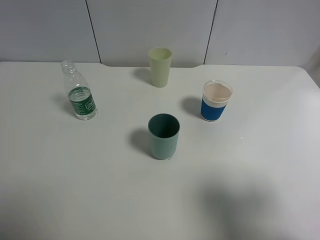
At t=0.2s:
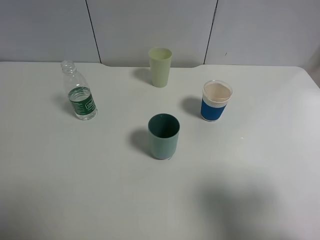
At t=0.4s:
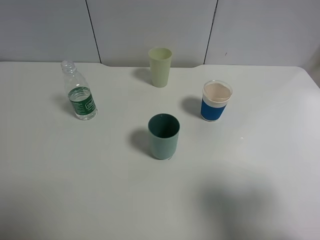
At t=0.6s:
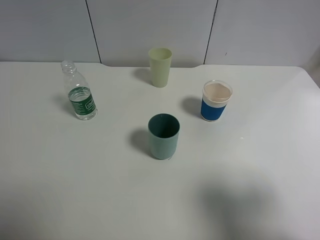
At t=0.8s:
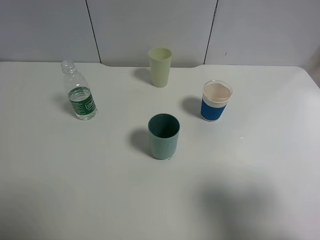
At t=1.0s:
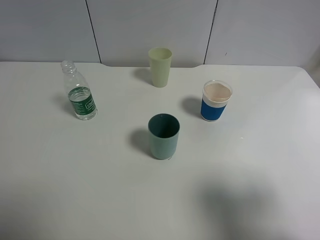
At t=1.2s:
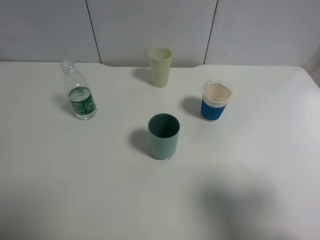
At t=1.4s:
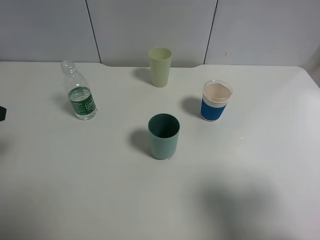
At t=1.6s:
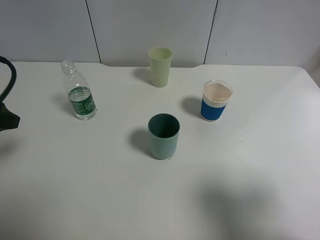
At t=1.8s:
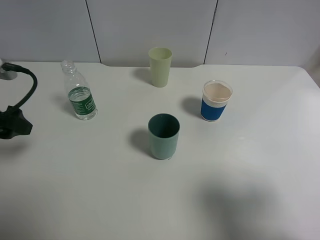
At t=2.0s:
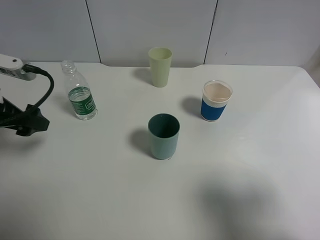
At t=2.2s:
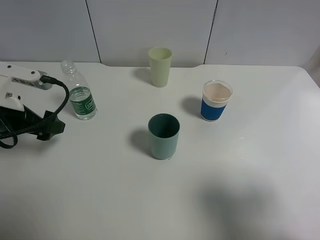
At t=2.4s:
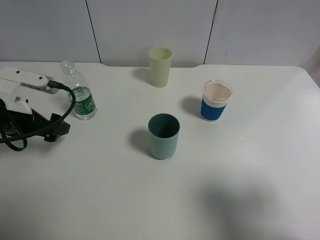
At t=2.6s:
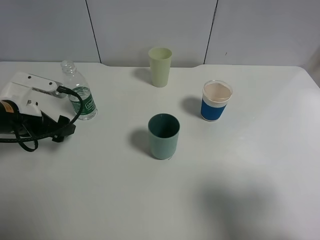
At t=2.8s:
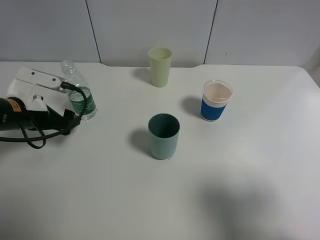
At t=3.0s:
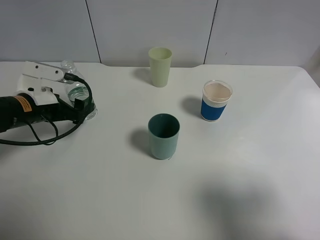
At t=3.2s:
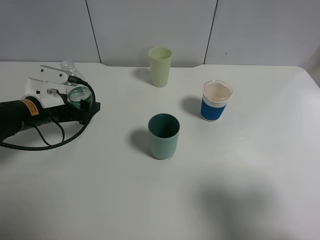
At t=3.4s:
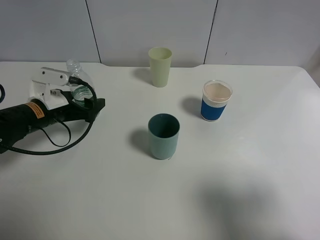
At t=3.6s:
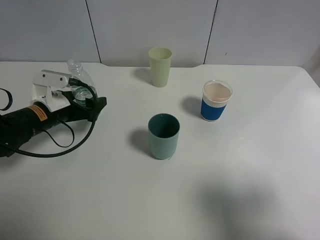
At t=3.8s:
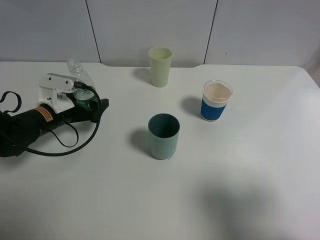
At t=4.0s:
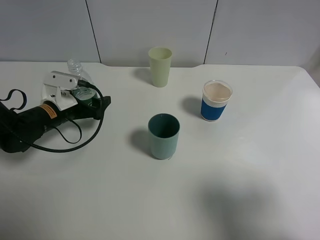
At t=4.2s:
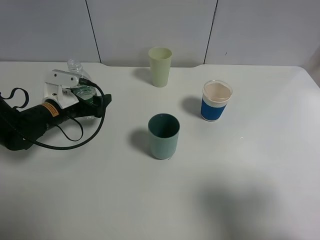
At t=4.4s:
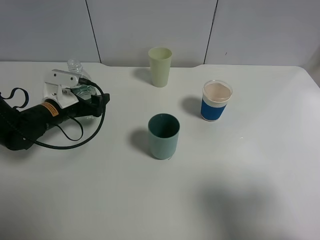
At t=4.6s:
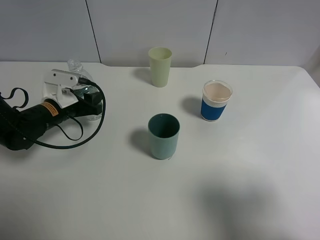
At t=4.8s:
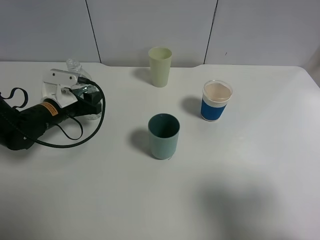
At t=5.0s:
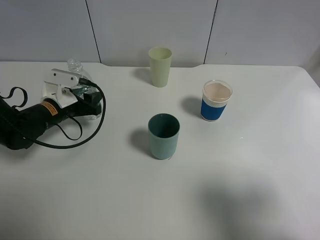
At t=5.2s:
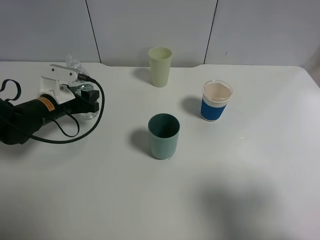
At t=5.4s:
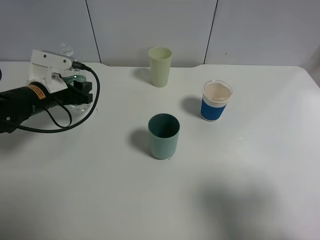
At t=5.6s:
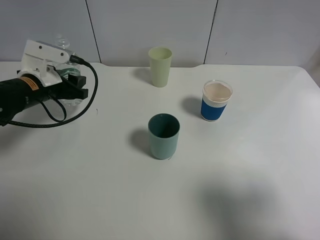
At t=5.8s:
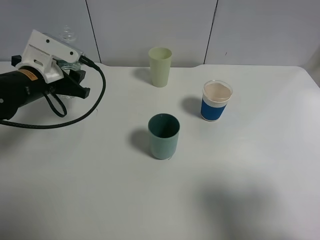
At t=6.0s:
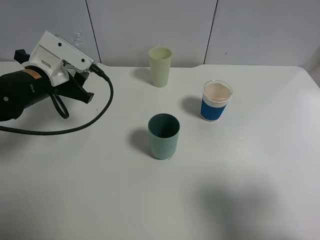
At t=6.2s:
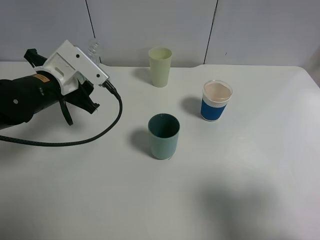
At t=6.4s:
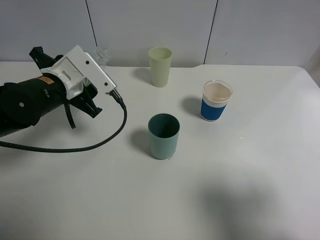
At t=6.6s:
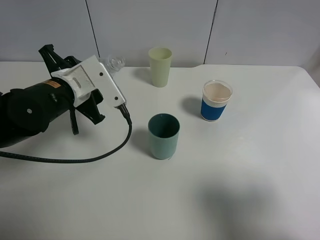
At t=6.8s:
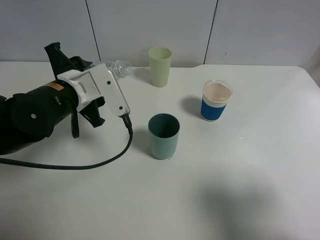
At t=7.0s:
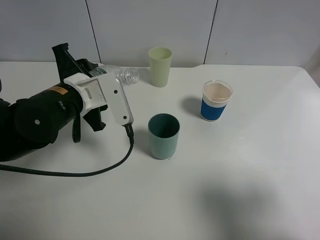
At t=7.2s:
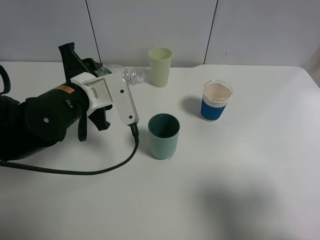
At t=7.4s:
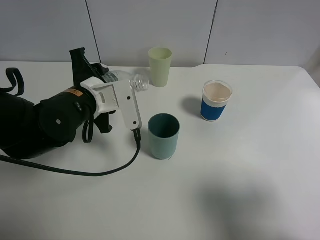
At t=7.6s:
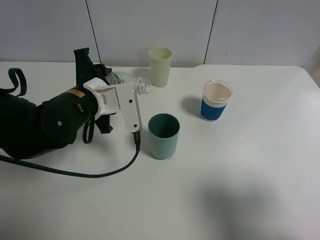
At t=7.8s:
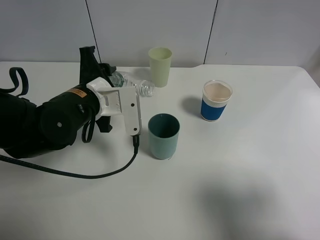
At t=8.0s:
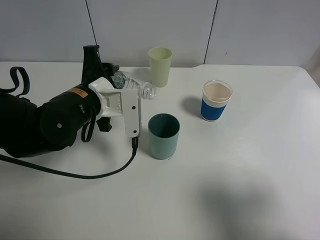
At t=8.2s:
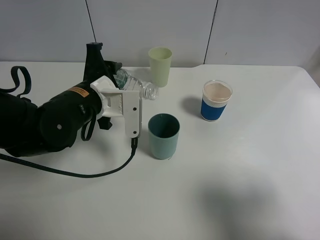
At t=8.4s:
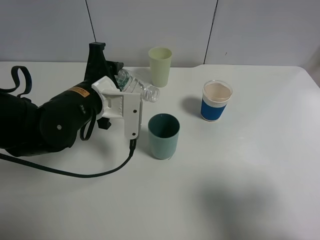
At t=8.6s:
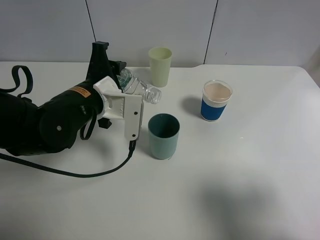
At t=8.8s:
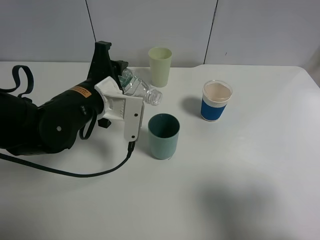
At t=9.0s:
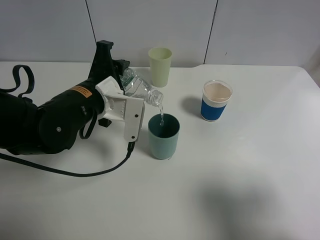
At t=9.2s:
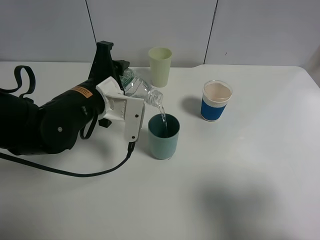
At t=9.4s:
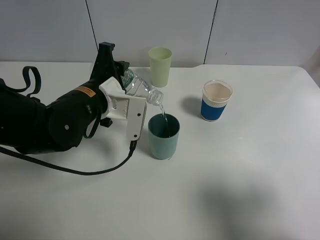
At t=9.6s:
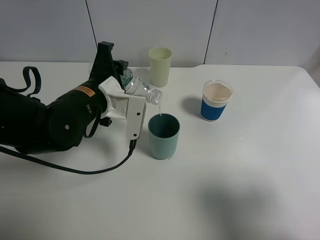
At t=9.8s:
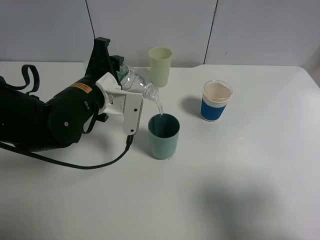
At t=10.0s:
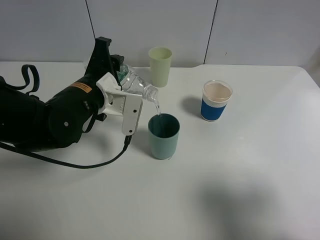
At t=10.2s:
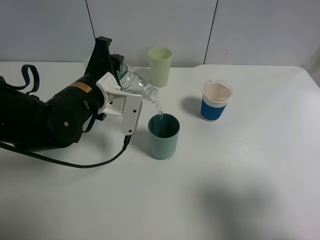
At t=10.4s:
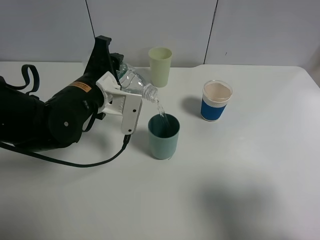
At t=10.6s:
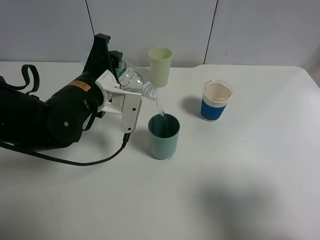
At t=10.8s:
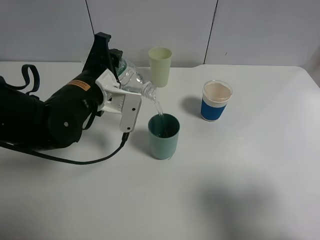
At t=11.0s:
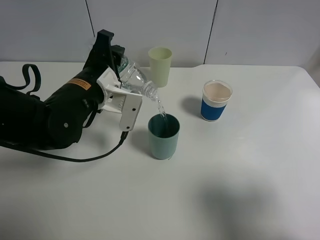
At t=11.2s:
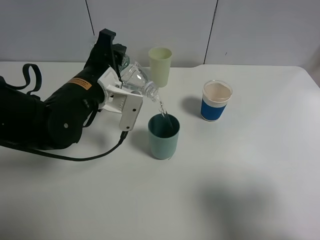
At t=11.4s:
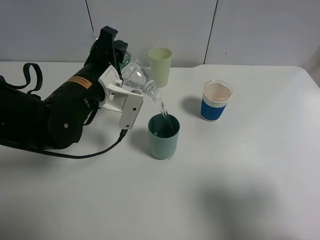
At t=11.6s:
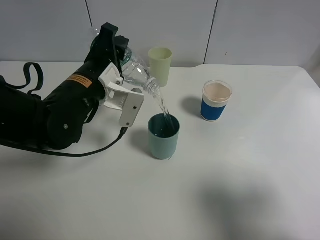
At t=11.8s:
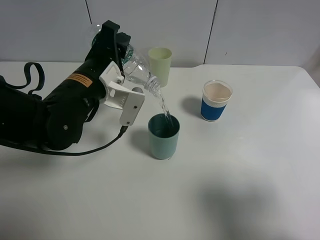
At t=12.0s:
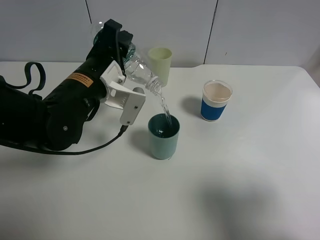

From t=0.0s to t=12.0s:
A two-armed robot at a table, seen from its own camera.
Task of the whole recording: use a clamp to hold the bottle of the drink, pour the beverage into a random cup, then clamp the cup containing the drink and pour the drink into another random cup.
Step, from t=0.0s to t=5.2s: Pick up the water bottle with left gripper.
From t=0.0s to t=1.6s: The left gripper moves forward, about 15 cm.
From t=1.6s to t=3.0s: The left gripper heads downward, forward and to the right, covering some 20 cm.
From t=3.0s to t=4.4s: The left gripper moves downward, roughly 5 cm.
From t=4.4s to t=6.0s: The left gripper is displaced upward by approximately 10 cm, and closes its fingers.
From t=6.0s to t=7.6s: The left gripper shifts roughly 10 cm to the right.
From t=9.0s to t=10.4s: The grippers move only a little.
From t=10.4s to t=12.0s: There are only small adjustments of the grippers.

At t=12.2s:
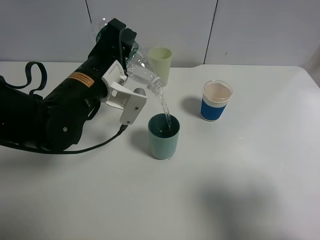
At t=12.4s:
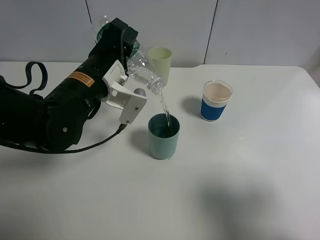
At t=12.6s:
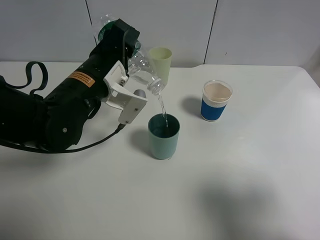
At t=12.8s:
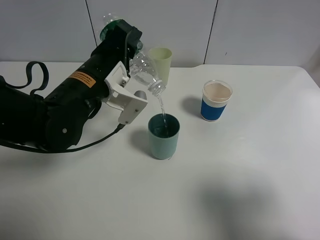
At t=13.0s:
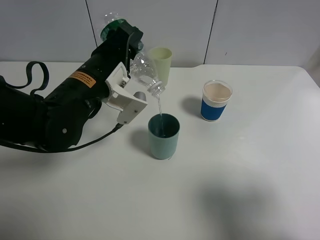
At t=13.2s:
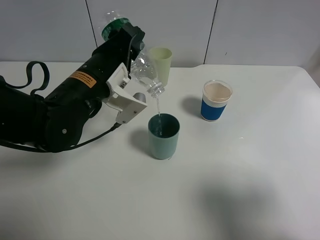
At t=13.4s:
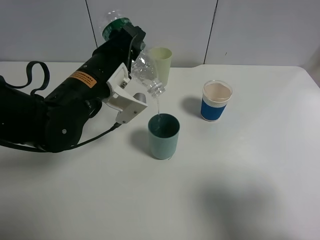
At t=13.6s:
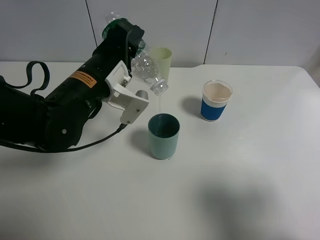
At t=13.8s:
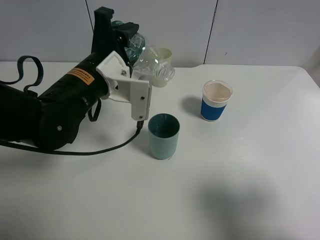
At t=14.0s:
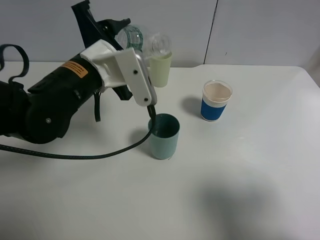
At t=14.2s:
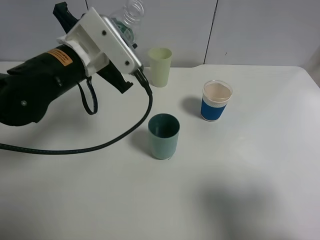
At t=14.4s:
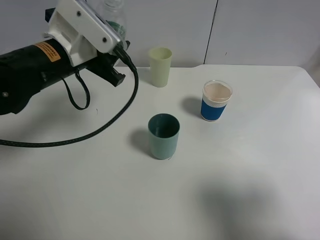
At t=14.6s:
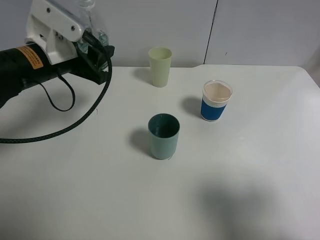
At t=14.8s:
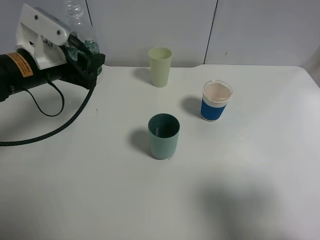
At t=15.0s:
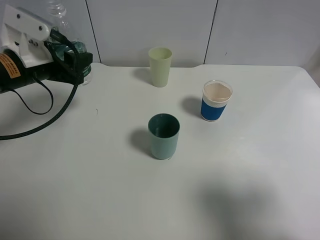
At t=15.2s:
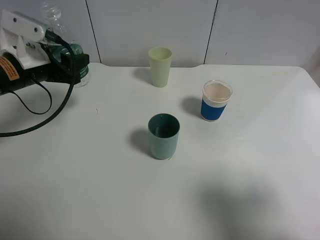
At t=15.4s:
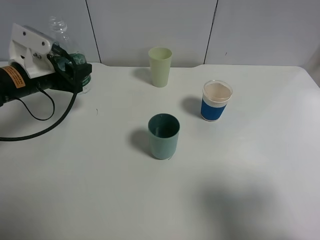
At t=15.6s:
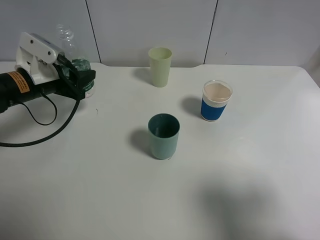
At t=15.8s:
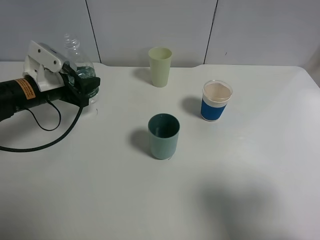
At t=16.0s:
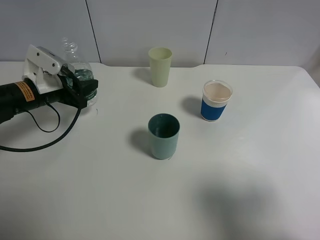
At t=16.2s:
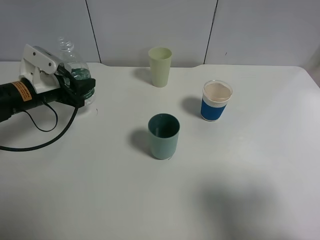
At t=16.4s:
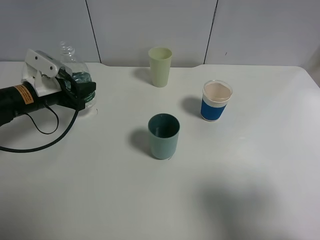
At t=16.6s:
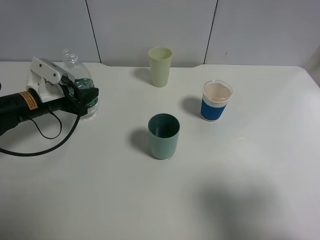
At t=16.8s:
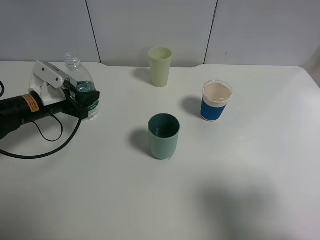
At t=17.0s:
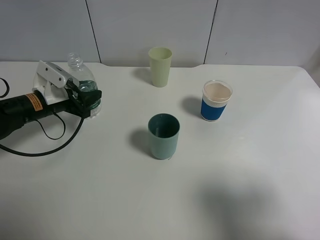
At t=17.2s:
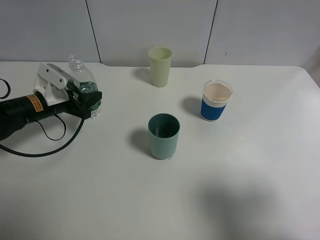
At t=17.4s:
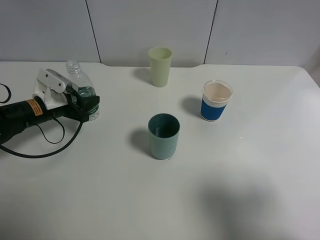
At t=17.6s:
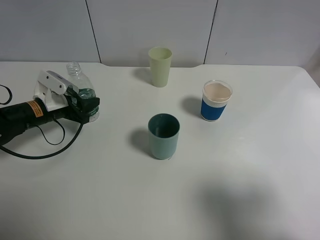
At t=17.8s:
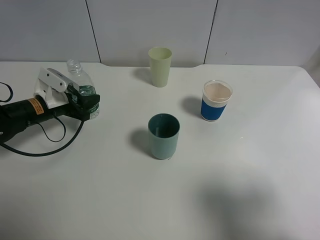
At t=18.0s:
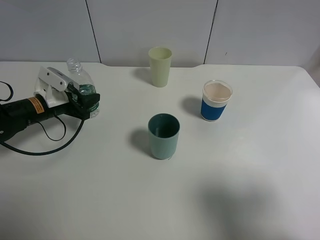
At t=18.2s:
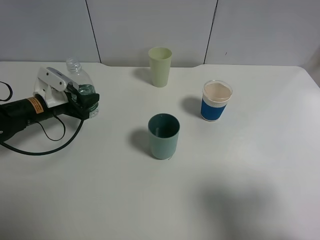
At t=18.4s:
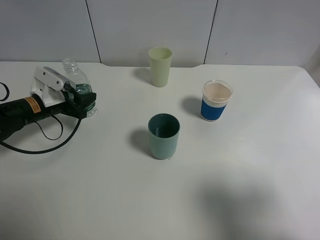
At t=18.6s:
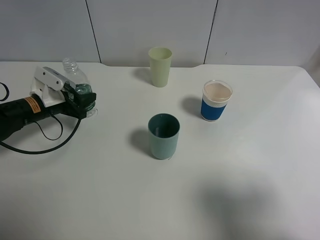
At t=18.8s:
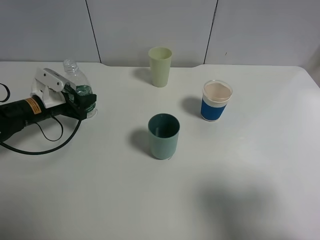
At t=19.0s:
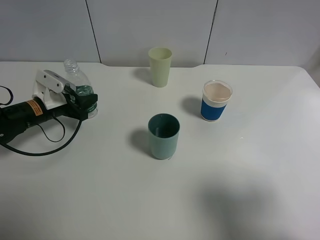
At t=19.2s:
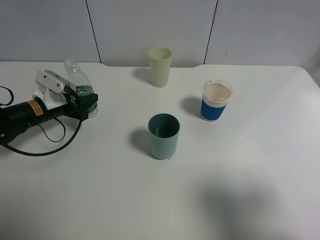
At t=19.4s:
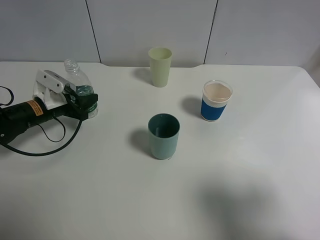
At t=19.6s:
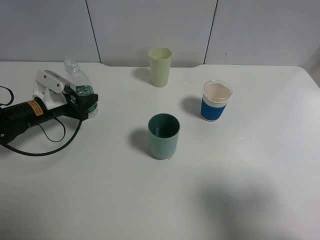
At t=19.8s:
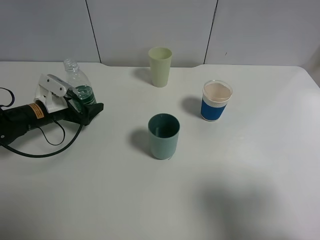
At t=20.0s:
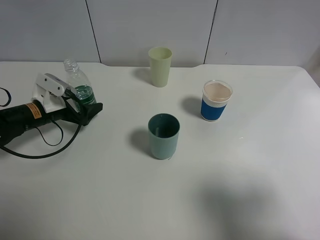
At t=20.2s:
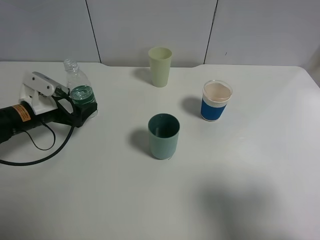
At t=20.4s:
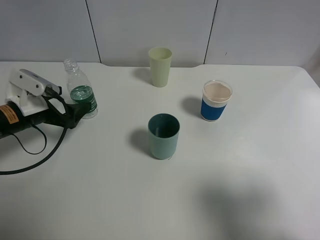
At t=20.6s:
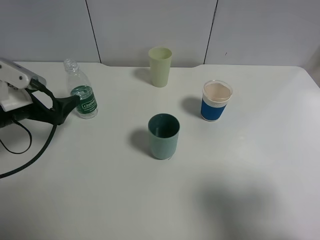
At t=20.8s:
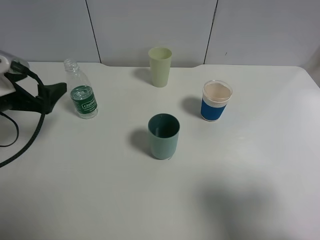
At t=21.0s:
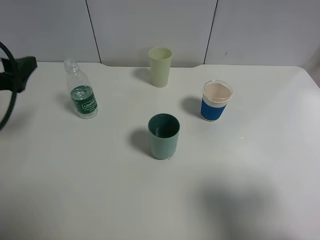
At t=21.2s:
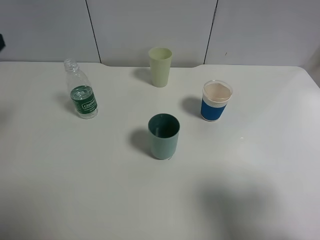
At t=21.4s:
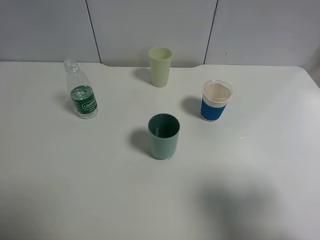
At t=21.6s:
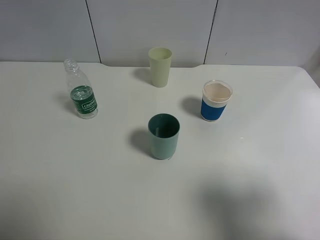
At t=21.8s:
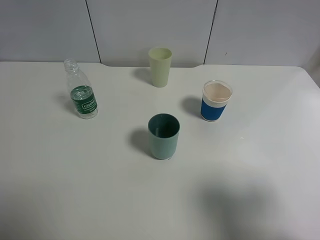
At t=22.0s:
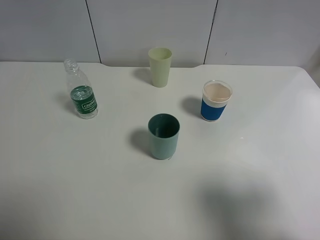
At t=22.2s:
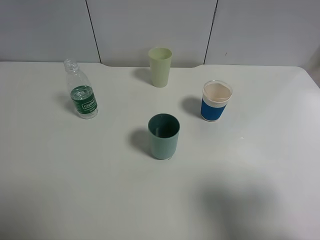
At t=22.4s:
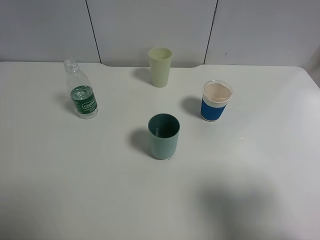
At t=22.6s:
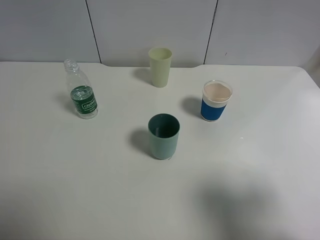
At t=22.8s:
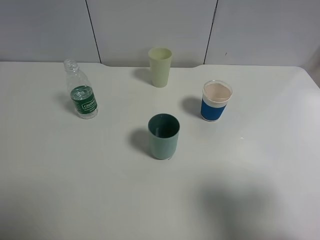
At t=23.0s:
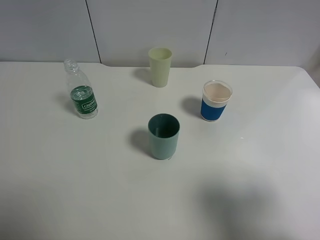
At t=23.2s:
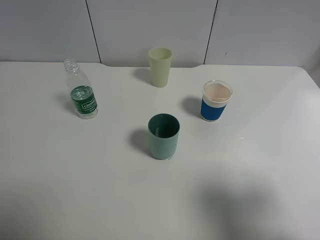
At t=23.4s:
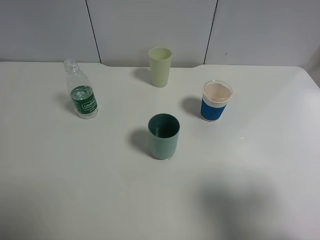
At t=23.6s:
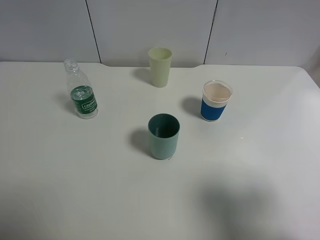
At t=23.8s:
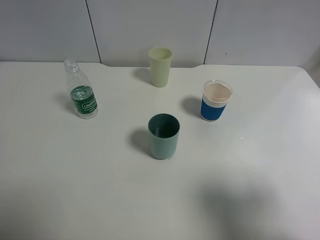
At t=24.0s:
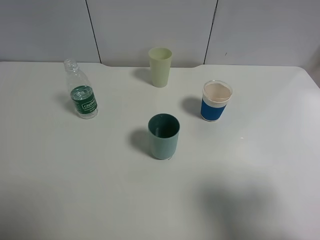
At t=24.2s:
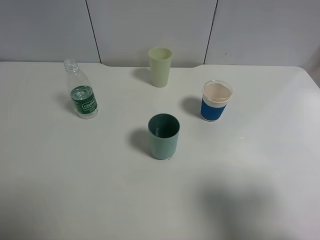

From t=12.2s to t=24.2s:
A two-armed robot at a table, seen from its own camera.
Task of the whole recording: use a clamp to hold the bottle of the drink, pour the beverage into a random cup, then clamp the cup containing the drink and pour the drink into another random cup.
Step, from t=14.2s to t=20.2s: Place the water bottle on the table with left gripper.
From t=12.2s to t=13.8s: The grippers stay close to where they were, moving slightly.
From t=13.8s to t=15.2s: The left gripper goes about 15 cm to the left.
From t=15.2s to t=16.6s: The left gripper goes roughly 10 cm downward.
From t=16.6s to t=18.2s: The grippers move only a little.
From t=18.2s to t=19.8s: The left gripper opens up.
From t=19.8s to t=21.2s: The left gripper goes approximately 25 cm upward and backward, and opens up.
